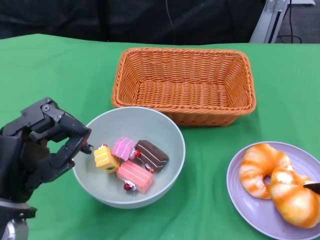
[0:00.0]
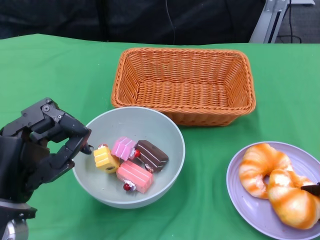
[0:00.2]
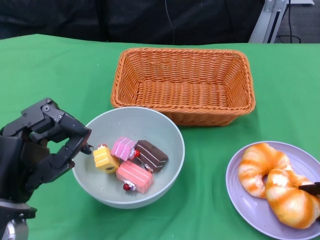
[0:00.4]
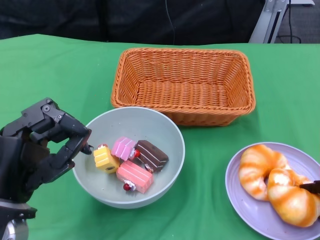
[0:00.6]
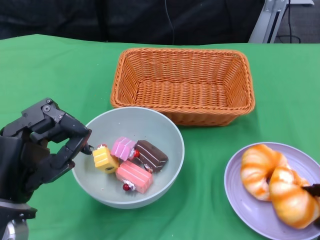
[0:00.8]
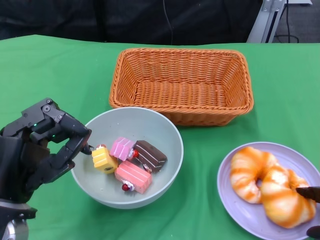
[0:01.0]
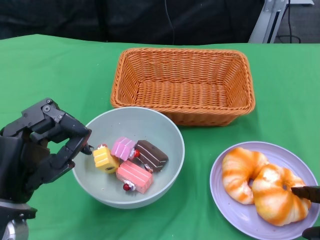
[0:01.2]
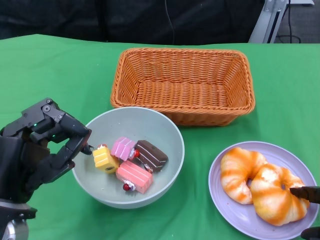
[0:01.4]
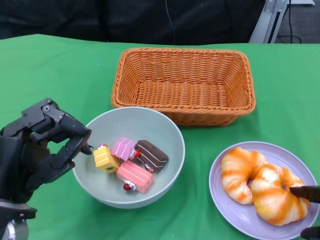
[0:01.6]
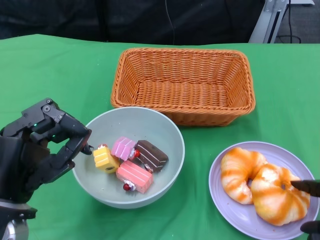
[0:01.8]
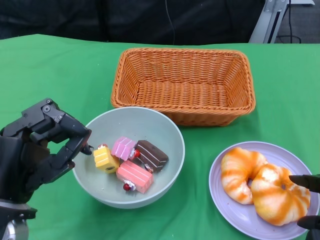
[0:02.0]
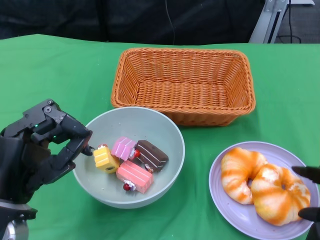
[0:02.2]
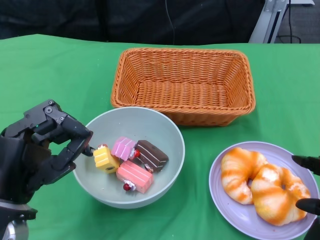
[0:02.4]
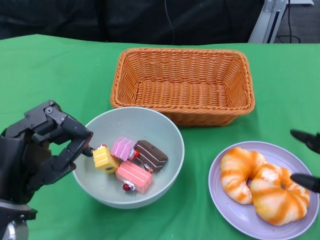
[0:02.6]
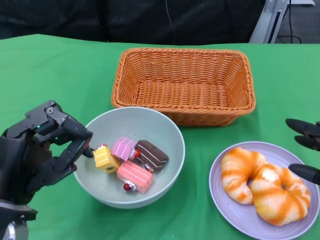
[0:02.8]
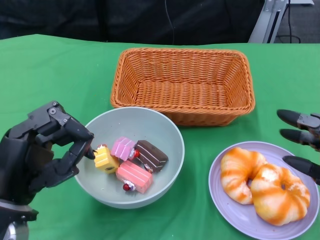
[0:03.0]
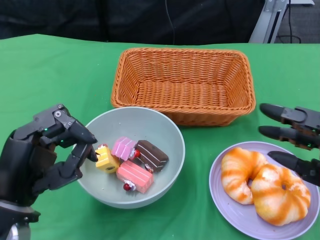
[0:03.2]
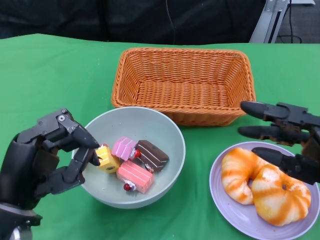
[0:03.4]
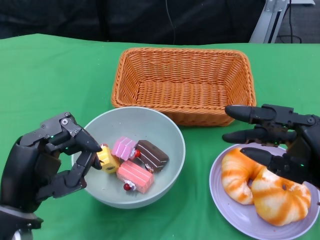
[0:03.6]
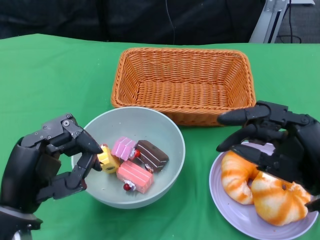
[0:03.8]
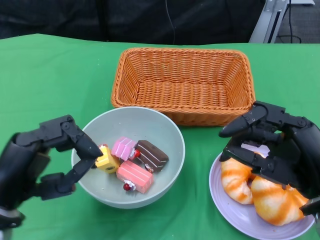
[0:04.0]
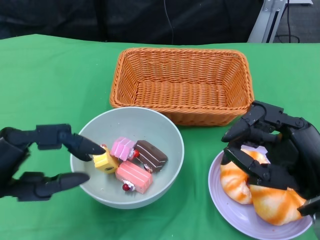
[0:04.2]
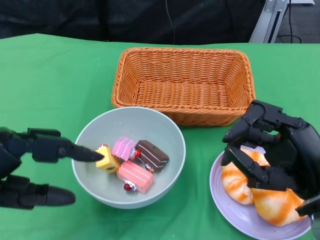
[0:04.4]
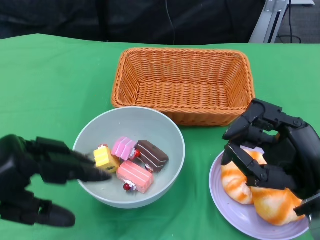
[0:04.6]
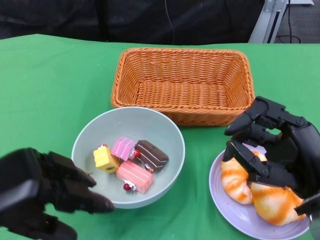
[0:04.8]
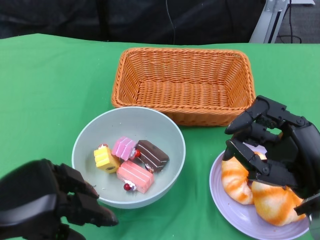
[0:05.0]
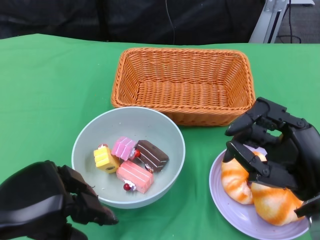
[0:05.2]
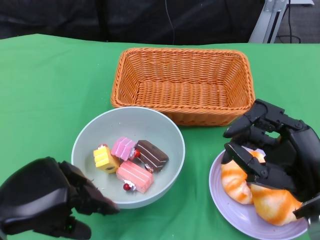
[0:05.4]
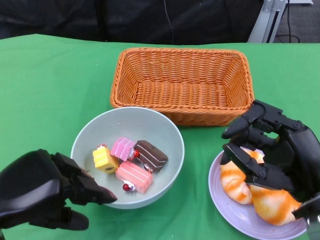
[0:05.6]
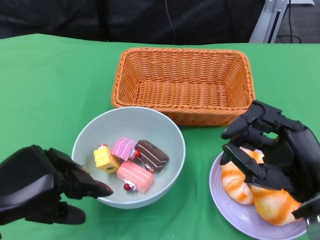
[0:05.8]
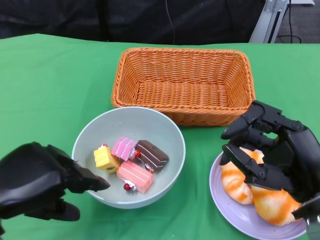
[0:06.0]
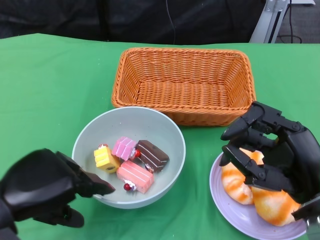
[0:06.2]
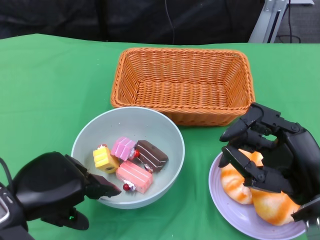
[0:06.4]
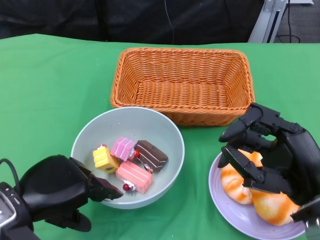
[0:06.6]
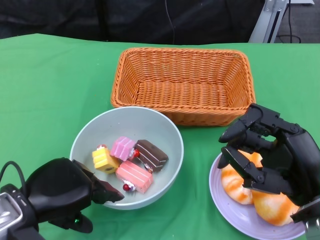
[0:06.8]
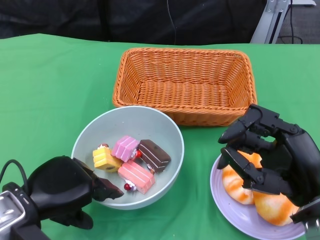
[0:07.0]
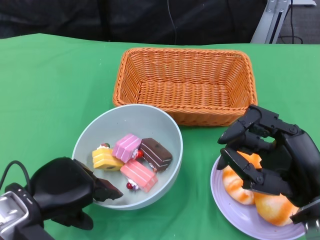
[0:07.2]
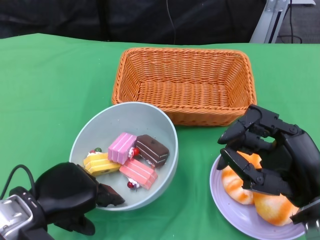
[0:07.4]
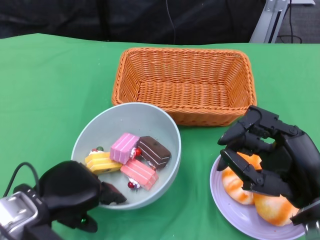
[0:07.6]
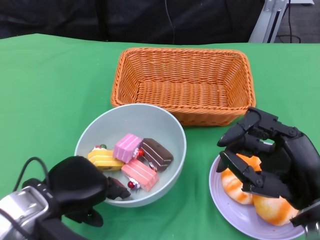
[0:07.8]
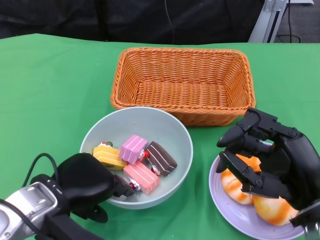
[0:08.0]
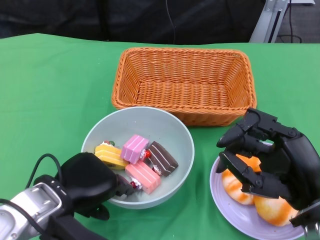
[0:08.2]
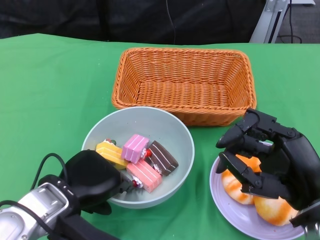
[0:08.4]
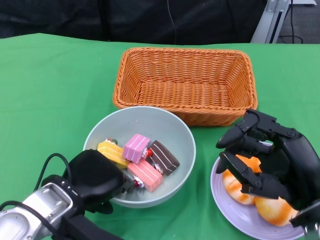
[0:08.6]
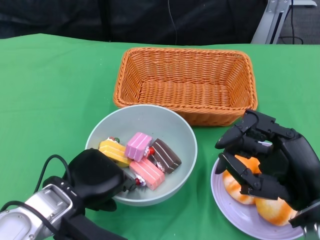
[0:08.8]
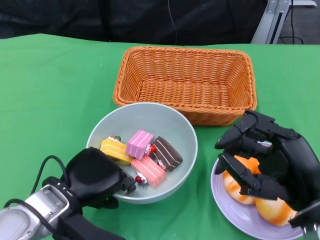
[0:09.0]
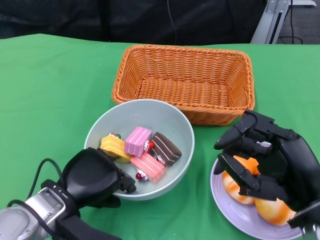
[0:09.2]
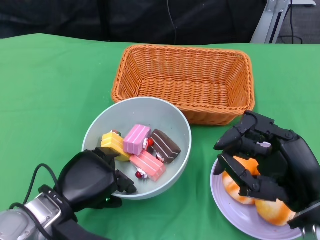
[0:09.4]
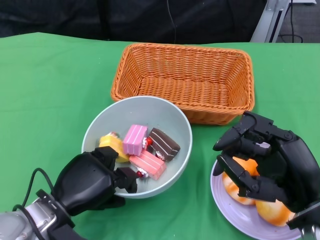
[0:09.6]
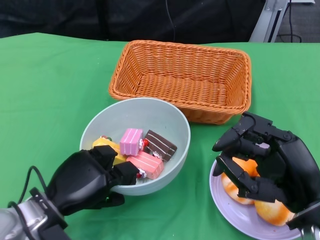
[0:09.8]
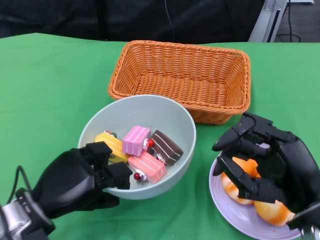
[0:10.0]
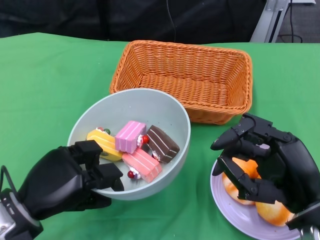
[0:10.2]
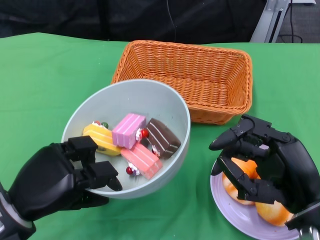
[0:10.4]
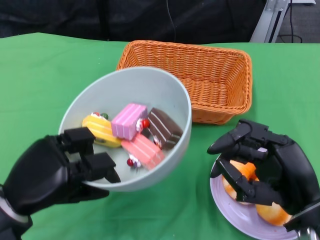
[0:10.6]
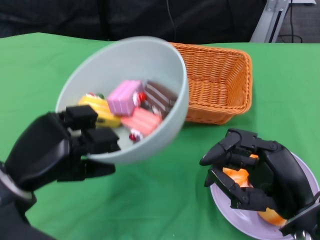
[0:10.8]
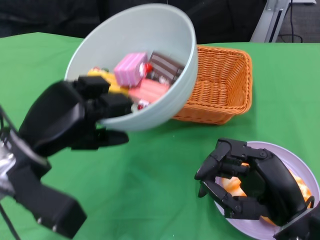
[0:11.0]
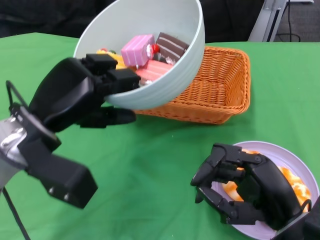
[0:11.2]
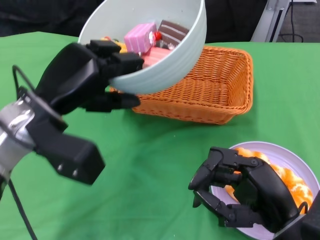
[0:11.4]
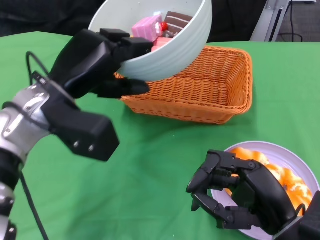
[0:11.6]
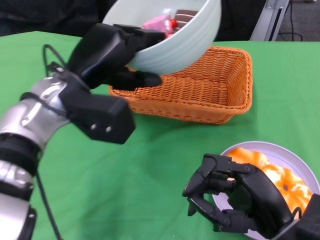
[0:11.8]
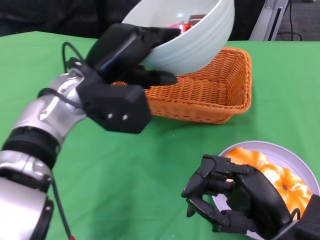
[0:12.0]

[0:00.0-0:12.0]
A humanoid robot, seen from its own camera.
Step, 2.0 to 8.8 s: Grasp the bowl with the left gripper.
0.0 to 1.6 s: The hands move only a little.
1.6 to 3.0 s: The right hand moves upward, roughly 5 cm.
3.0 to 4.4 s: The right hand moves to the left, some 5 cm. The left hand goes some 10 cm to the left and upward.
6.0 to 7.6 s: The left hand changes place by some 5 cm.
9.0 to 10.4 s: The left hand goes approximately 5 cm to the left.
10.4 to 12.0 s: The left hand is displaced forward, to the right and upward by approximately 20 cm.

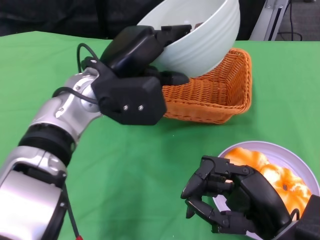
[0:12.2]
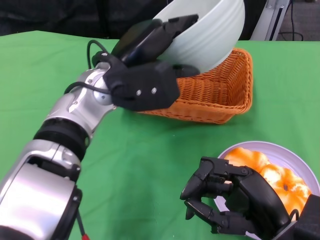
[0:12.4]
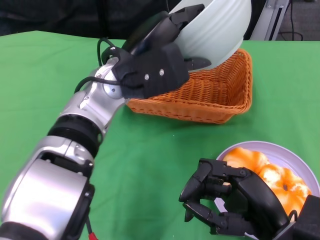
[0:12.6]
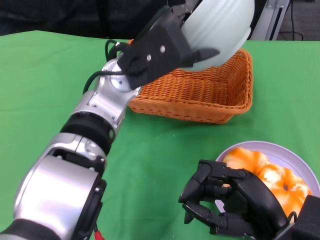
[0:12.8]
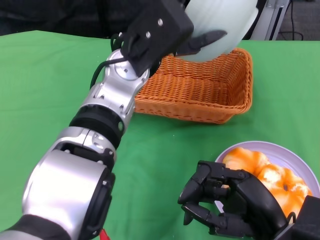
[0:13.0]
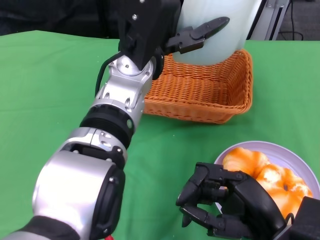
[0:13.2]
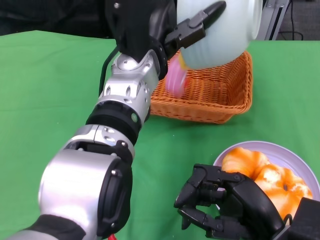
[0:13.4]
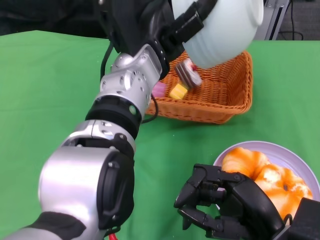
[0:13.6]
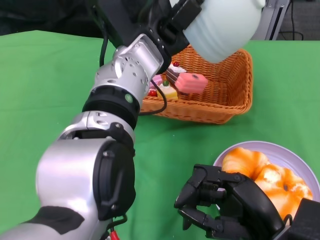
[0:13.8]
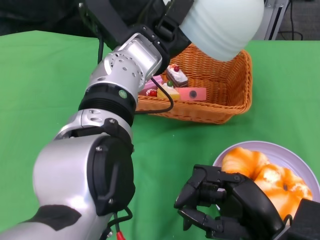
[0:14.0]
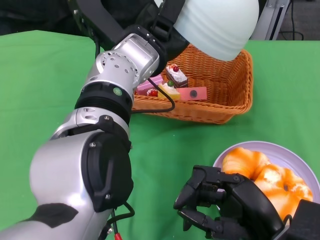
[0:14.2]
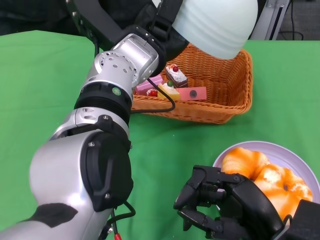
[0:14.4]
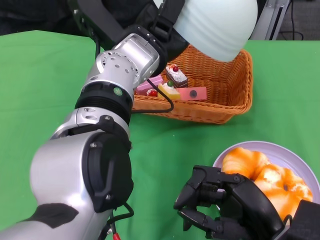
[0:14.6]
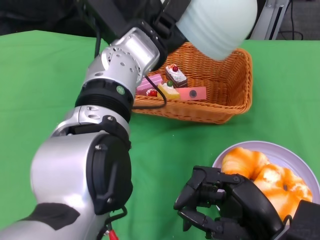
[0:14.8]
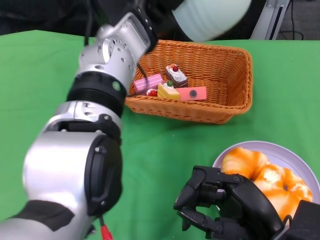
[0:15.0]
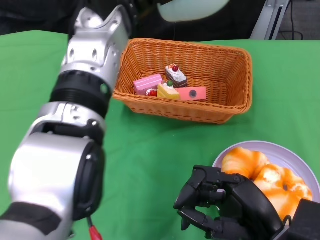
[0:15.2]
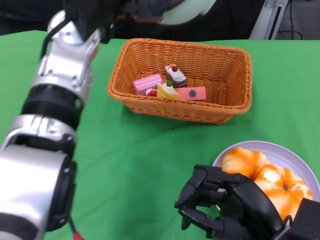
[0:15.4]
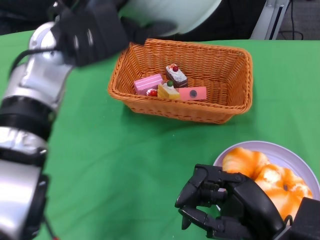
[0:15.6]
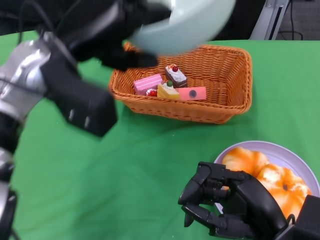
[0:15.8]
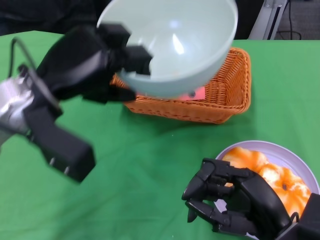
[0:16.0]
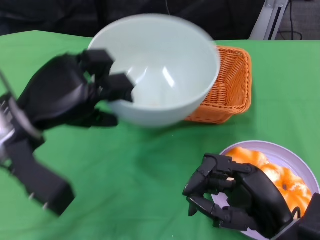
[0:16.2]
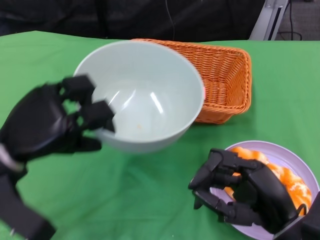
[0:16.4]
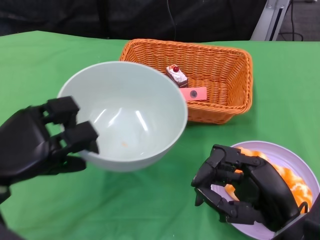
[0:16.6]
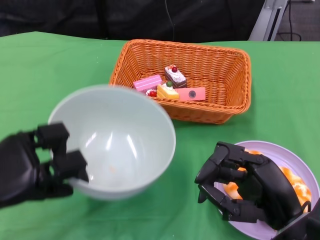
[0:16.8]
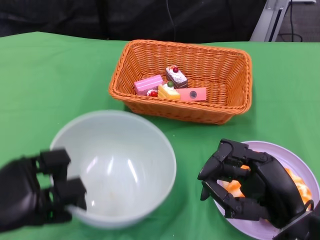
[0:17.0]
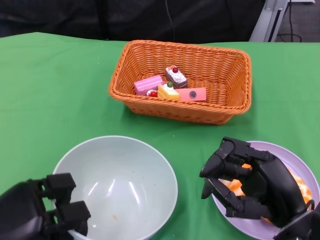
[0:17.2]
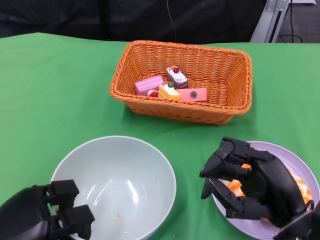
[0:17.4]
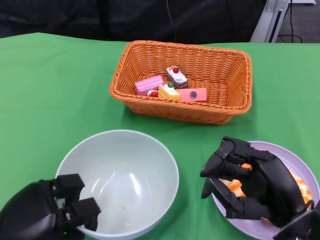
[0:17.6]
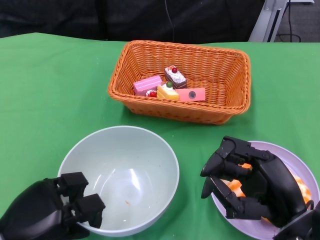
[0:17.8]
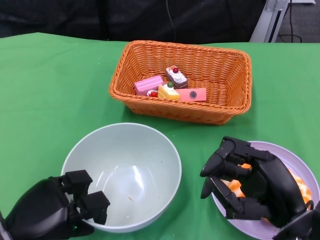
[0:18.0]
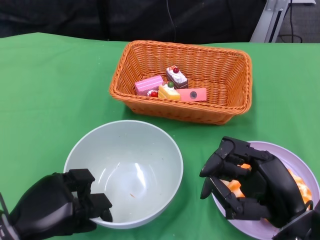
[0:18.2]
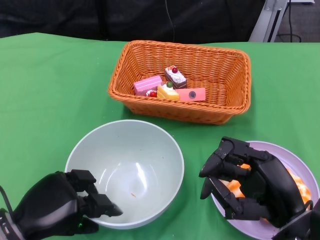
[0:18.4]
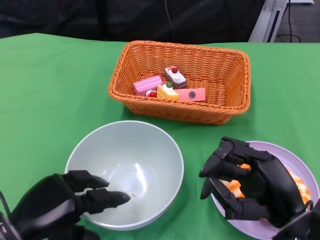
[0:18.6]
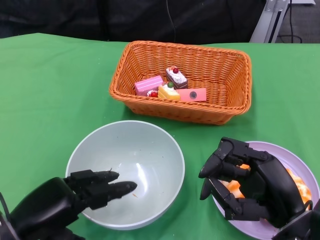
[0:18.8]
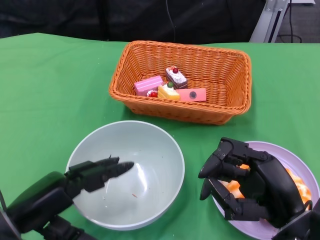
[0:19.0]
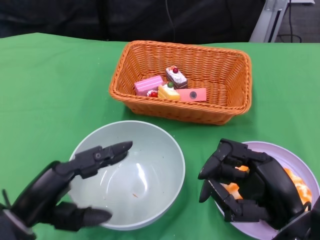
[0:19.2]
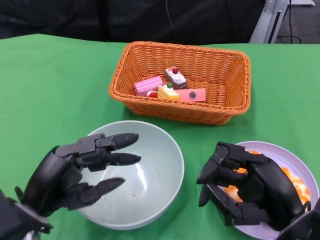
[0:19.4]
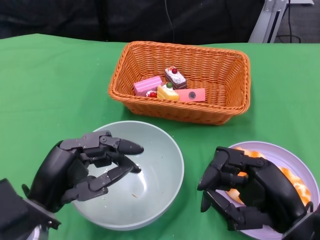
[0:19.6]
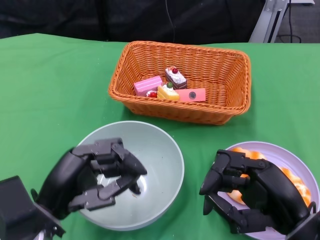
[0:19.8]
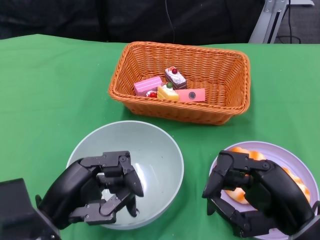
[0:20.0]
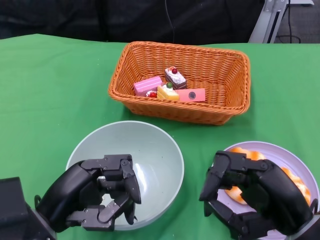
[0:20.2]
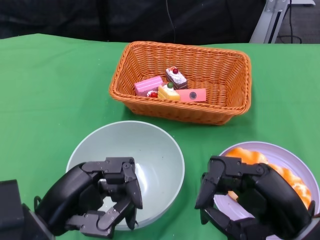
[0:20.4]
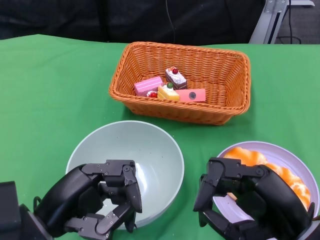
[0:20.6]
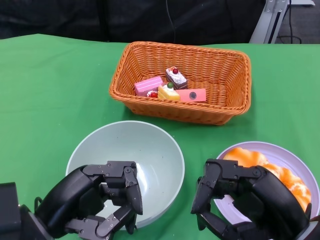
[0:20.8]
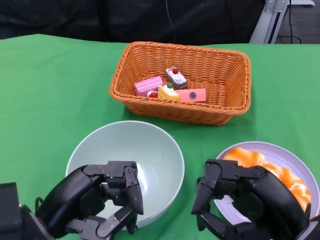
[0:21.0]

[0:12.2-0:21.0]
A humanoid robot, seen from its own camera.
Step, 12.2 to 14.2 s: Pour the cake into the basket with the left gripper.
Step, 14.4 to 18.4 s: Place the bowl on the table with the left gripper.
12.2 to 13.6 s: The left hand shifts roughly 5 cm to the right.
13.6 to 15.2 s: The left hand moves upward, about 5 cm.
15.2 to 16.6 s: The left hand shifts some 25 cm to the left, downward and backward.
16.6 to 18.0 s: The left hand goes approximately 10 cm downward and backward.
18.0 to 19.6 s: The left hand is displaced upward by approximately 5 cm.

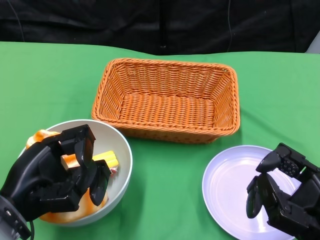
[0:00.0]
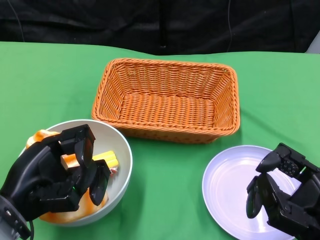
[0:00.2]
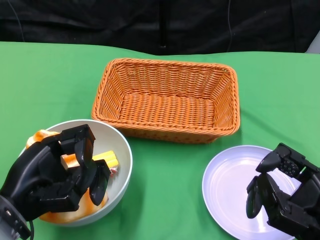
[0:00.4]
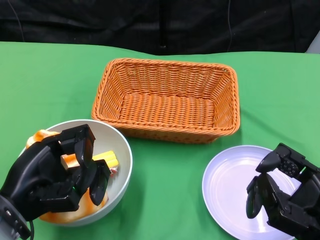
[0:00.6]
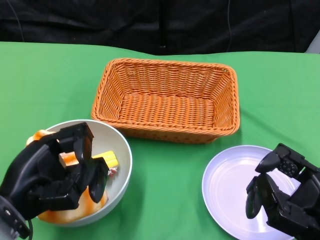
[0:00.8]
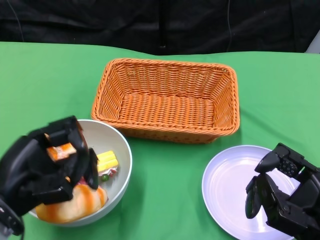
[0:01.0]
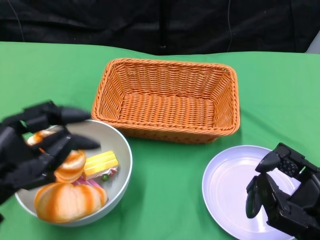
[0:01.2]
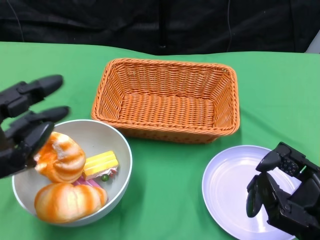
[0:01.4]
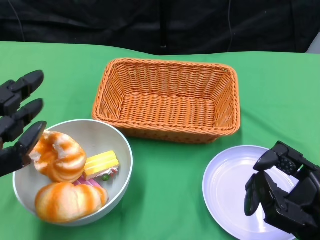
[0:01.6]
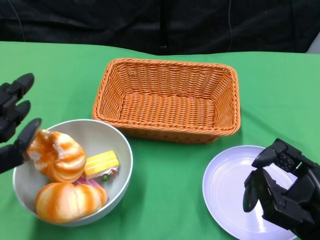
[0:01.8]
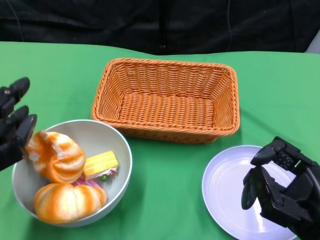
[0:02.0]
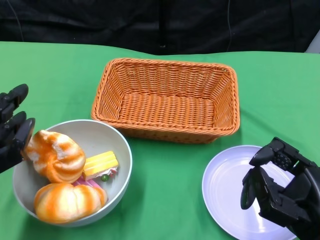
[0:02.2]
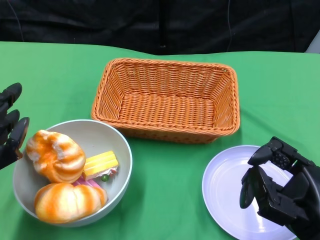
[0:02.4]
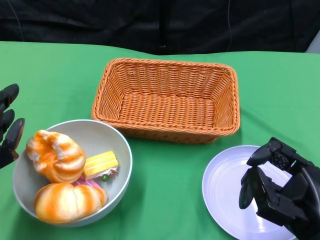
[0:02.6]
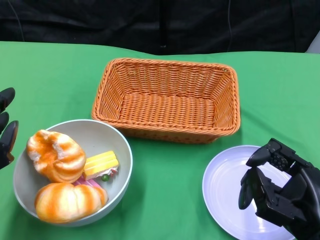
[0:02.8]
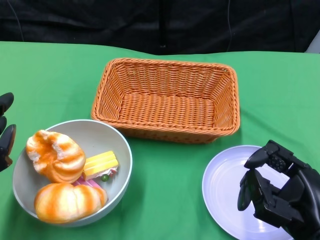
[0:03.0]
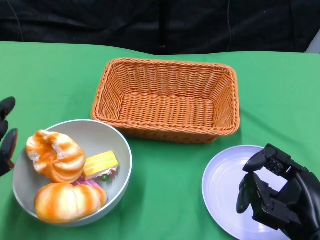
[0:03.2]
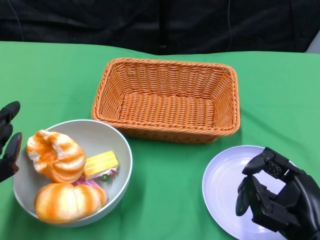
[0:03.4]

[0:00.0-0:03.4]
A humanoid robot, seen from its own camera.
1.6 to 3.4 s: The left hand shifts some 5 cm downward.
